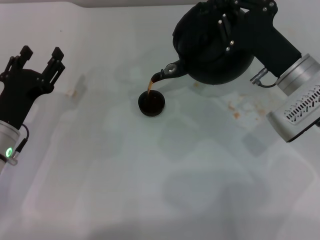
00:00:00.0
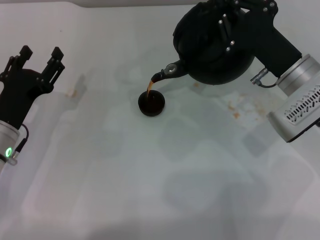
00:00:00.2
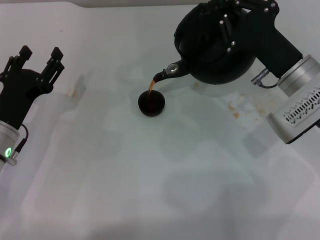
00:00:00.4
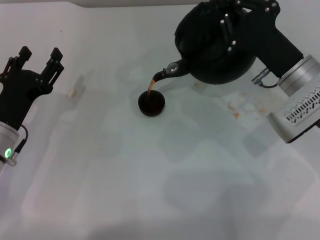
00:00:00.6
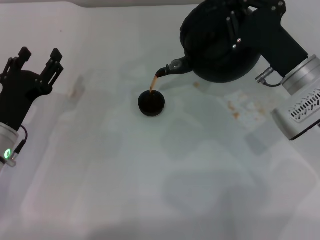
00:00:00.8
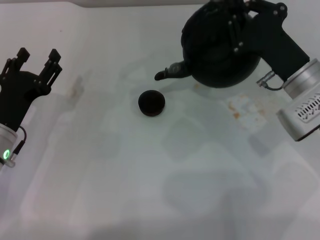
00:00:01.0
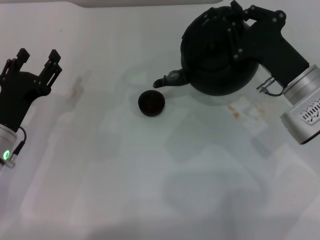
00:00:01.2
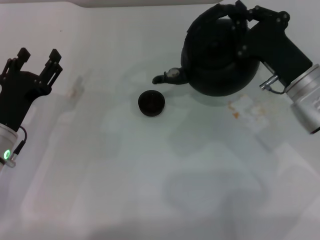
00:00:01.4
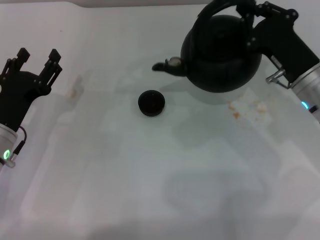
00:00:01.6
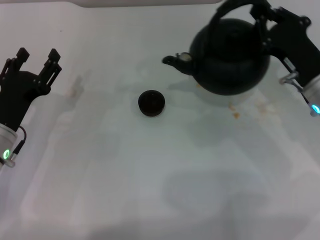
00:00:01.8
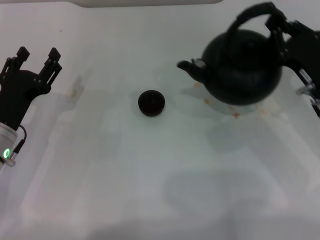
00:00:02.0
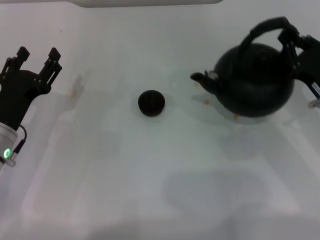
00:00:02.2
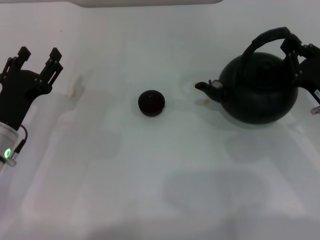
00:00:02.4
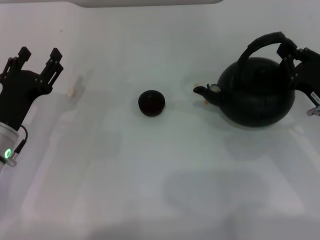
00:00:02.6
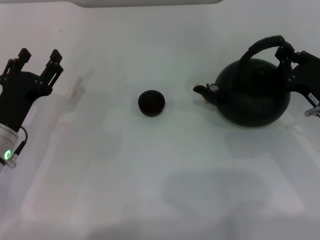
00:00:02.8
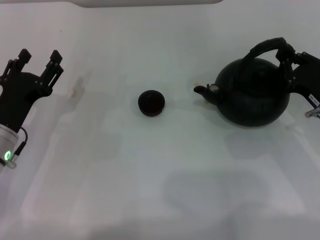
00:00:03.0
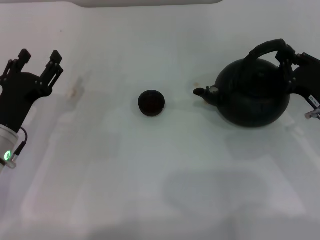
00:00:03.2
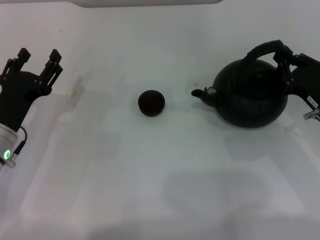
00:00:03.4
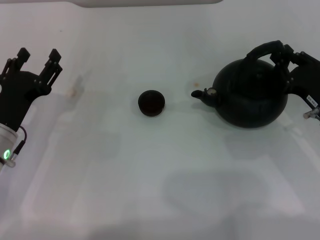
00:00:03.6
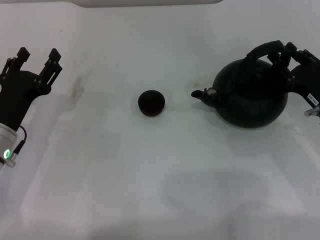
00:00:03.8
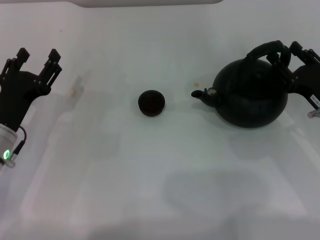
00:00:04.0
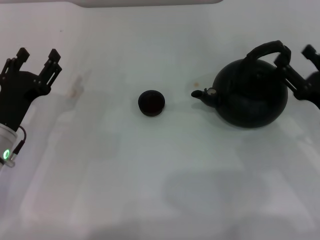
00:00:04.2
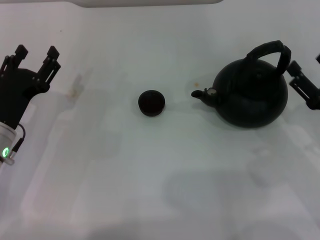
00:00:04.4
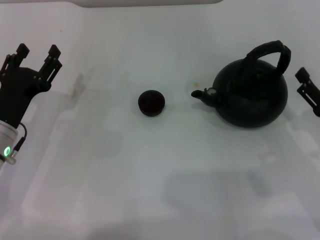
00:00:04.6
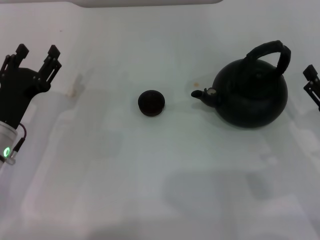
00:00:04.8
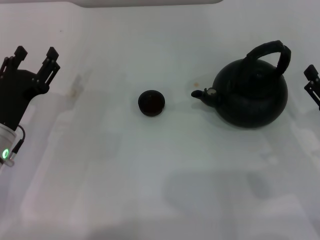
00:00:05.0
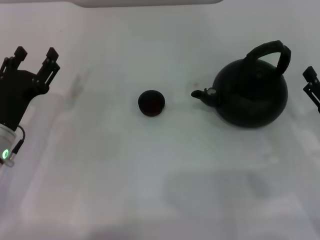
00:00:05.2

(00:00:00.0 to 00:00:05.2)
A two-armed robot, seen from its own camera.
Task of the whole recording: Grasp the handle of the teapot with one hand and pour tea into the teacup.
Step, 00:00:01.4 - 00:00:04.2: Put down the teapot with the right gripper.
00:00:01.8 - 00:00:03.4: The right gripper shifts by approximately 5 cm.
00:00:03.4 - 00:00:05.2: The right gripper is displaced backward by approximately 5 cm, and opens up.
